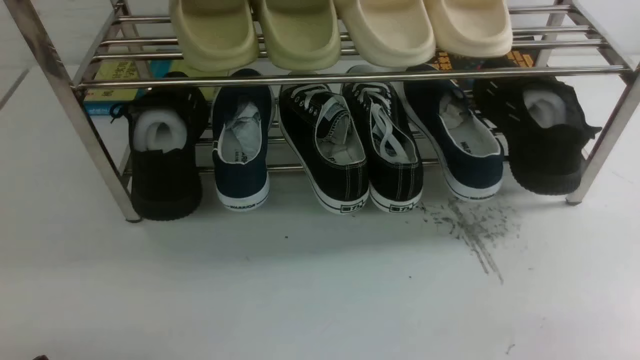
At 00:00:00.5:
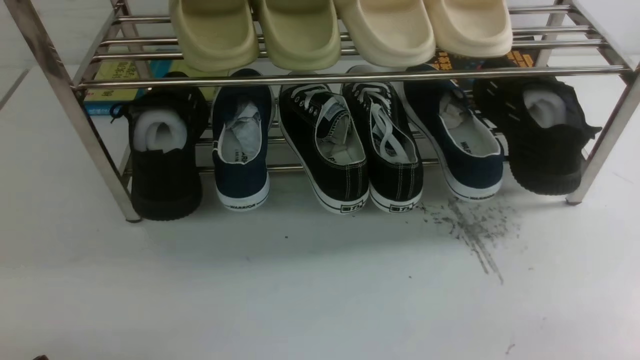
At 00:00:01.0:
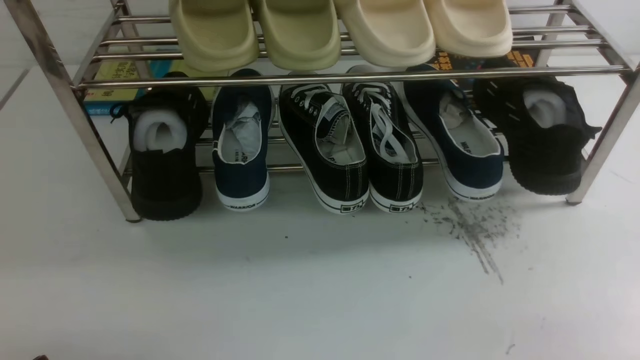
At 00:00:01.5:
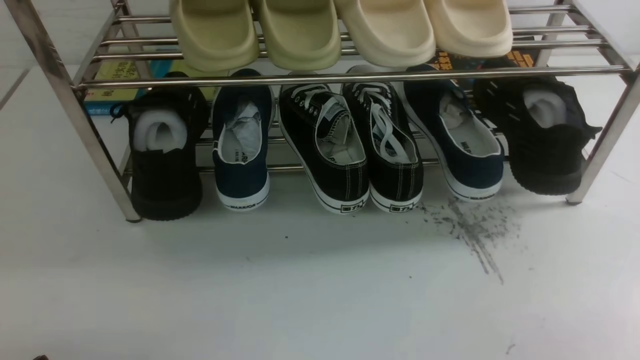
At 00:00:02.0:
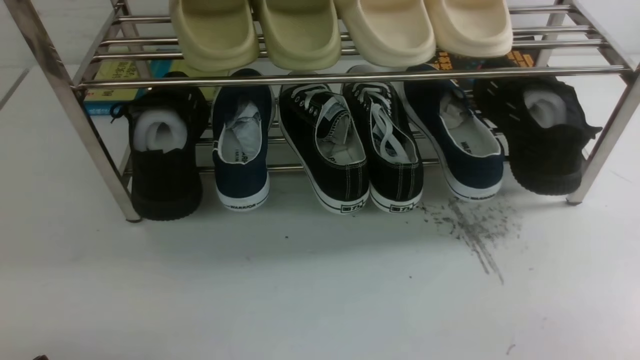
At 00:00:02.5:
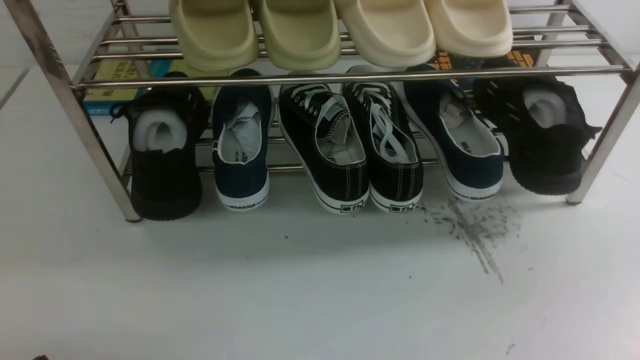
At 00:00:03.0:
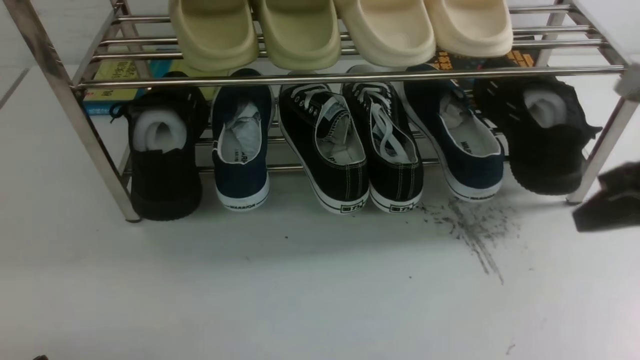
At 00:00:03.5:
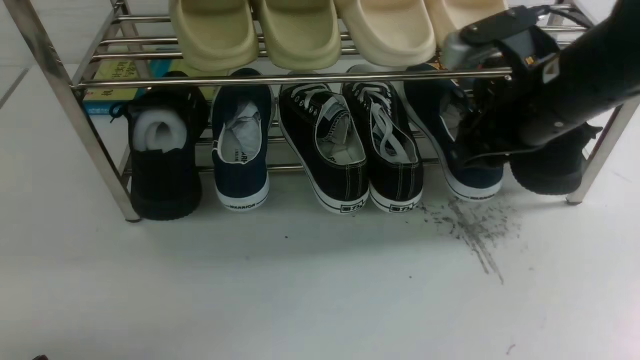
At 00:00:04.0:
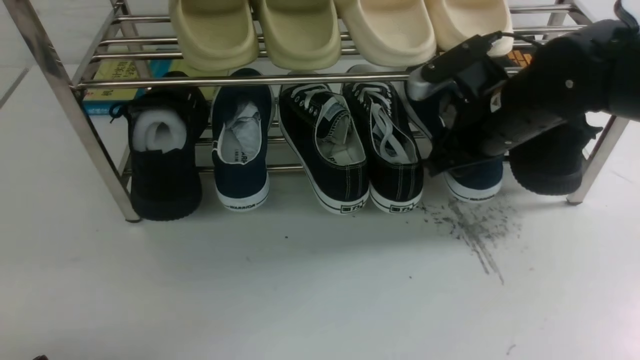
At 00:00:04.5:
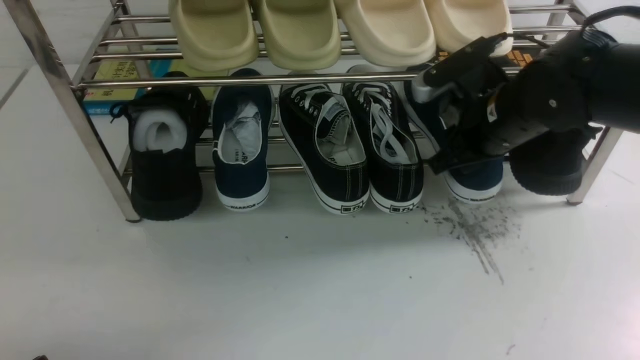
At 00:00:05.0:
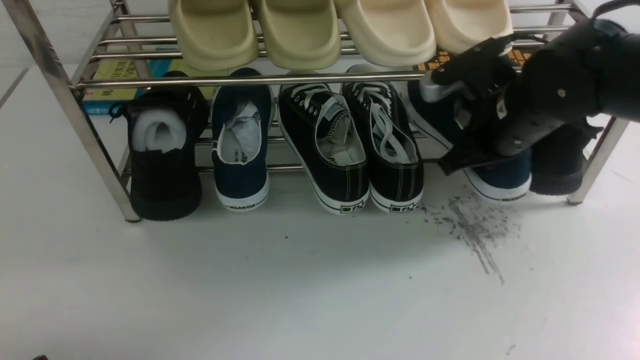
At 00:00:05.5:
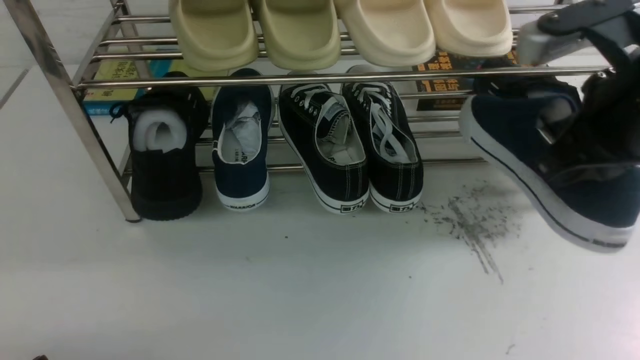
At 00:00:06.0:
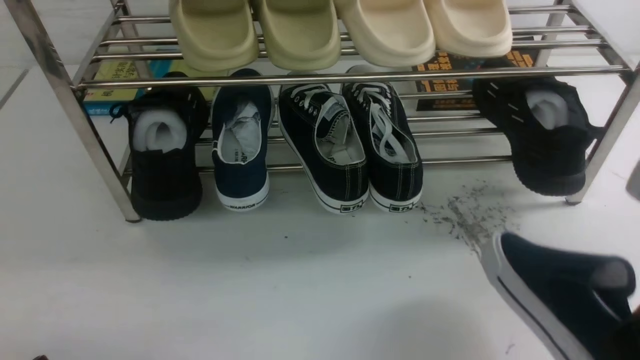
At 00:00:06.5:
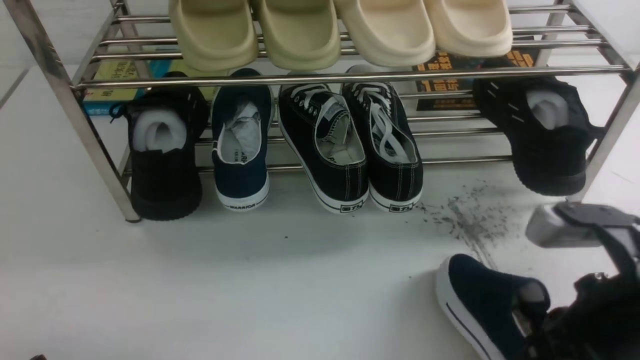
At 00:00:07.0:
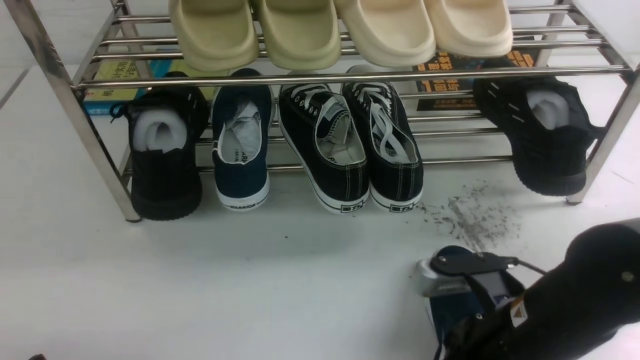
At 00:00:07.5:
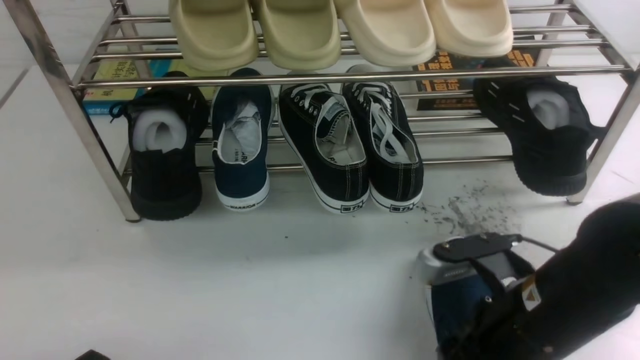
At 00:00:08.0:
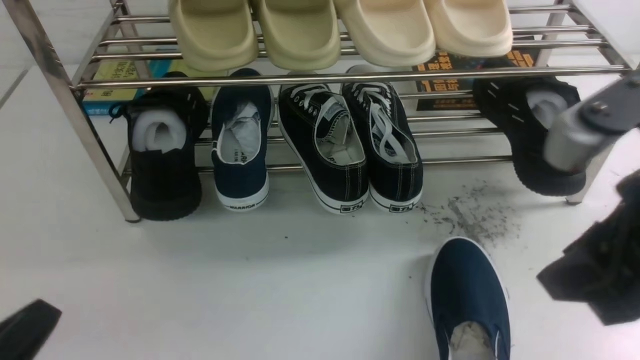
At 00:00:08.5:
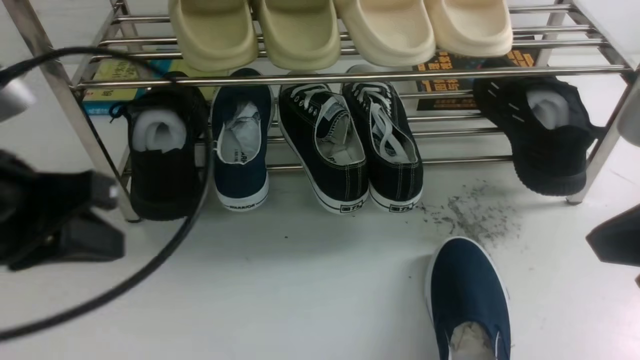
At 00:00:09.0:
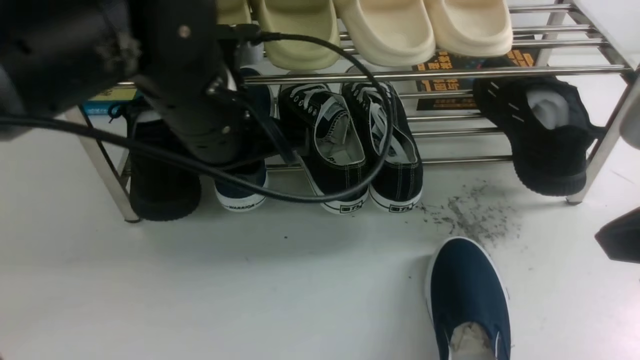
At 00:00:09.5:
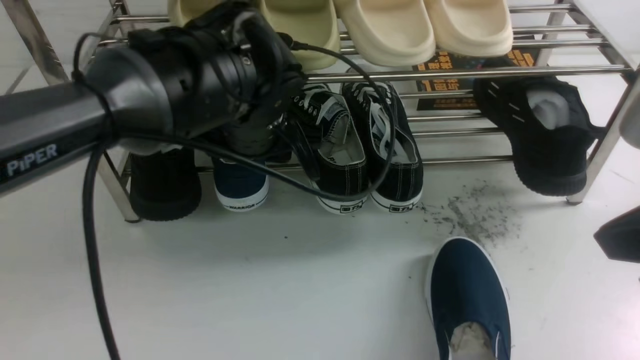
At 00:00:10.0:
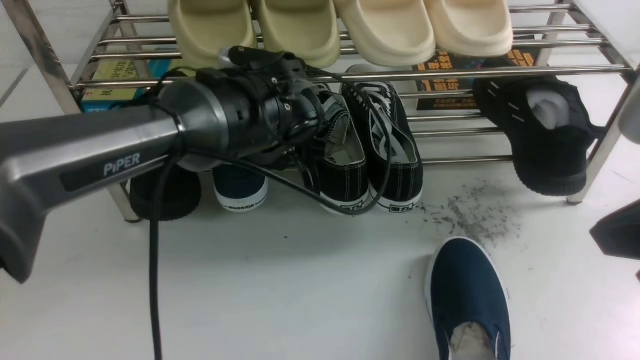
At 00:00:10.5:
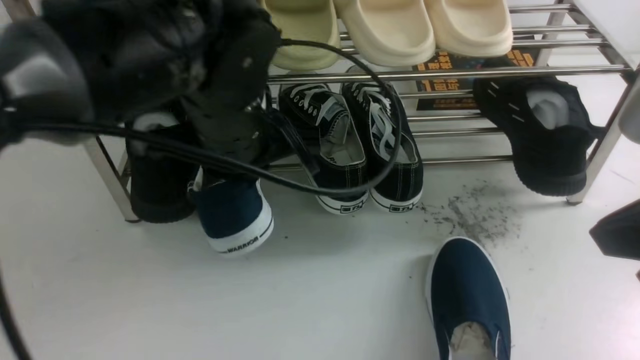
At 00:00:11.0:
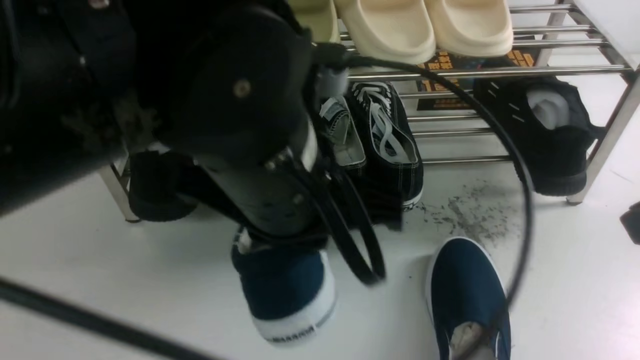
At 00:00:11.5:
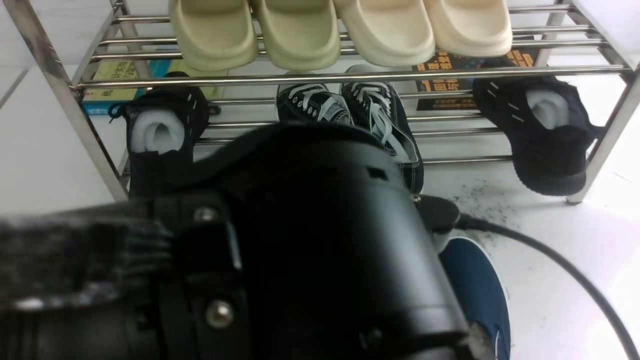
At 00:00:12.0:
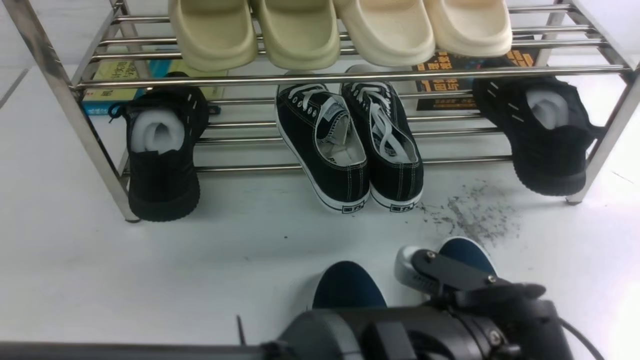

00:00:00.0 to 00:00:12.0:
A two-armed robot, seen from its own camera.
Step, 00:00:00.0 to 00:00:05.0: use the right arm to clamp a shoe on the right side of the shoe rack.
Step, 00:00:05.5 to 00:00:07.5: use the right arm to take out the clamped shoe from the shoe rack and put it down.
Step, 00:00:08.0 to 00:00:10.5: use the left arm to clamp a shoe on the left side of the shoe rack.
00:00:02.0 to 00:00:04.0: The right gripper is displaced forward and to the left by roughly 35 cm, and opens up.
00:00:04.0 to 00:00:06.0: The right gripper moves backward, about 20 cm, and closes.
00:00:06.0 to 00:00:08.0: The right gripper reaches some 15 cm downward, then returns, and opens its fingers. Meanwhile the left gripper goes about 10 cm upward, and closes up.
00:00:08.0 to 00:00:10.0: The left gripper goes some 35 cm forward and to the right, and opens its fingers. The right gripper closes its fingers.
00:00:10.0 to 00:00:12.0: The right gripper moves roughly 5 cm; the left gripper moves backward and to the right, approximately 25 cm, and closes its fingers.

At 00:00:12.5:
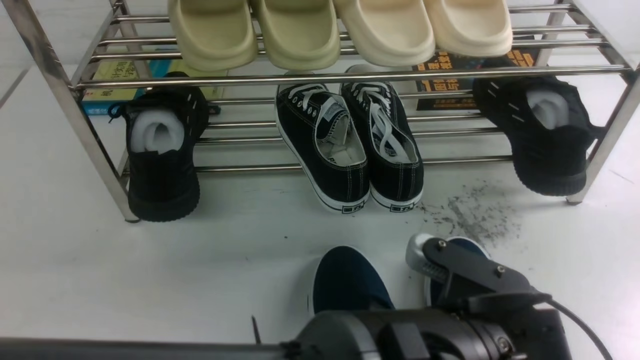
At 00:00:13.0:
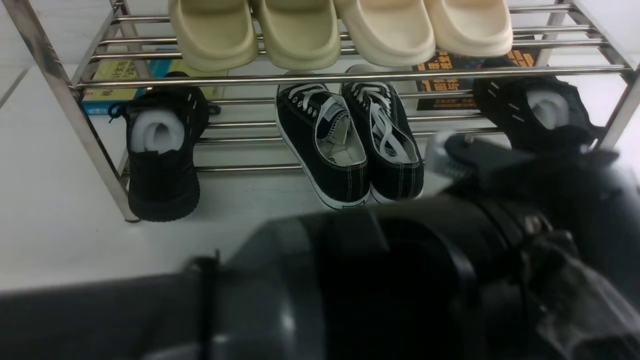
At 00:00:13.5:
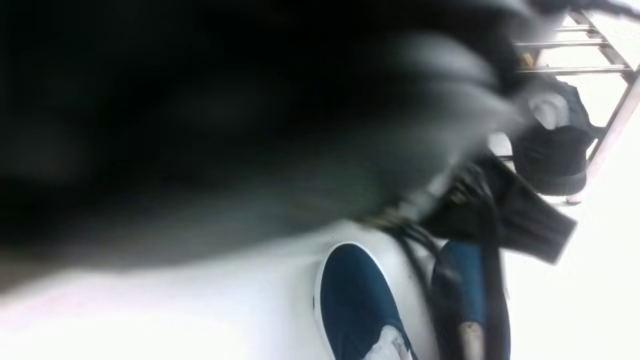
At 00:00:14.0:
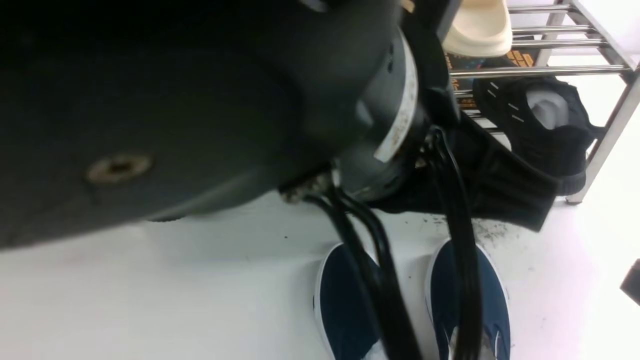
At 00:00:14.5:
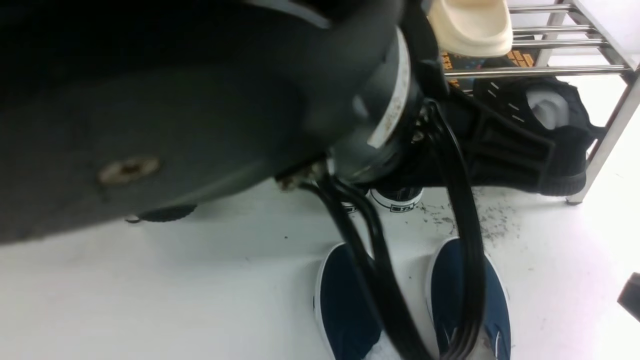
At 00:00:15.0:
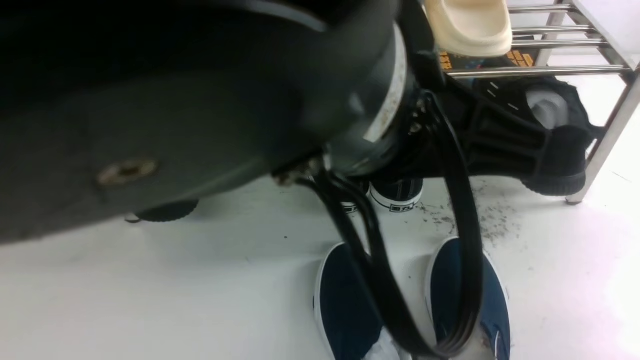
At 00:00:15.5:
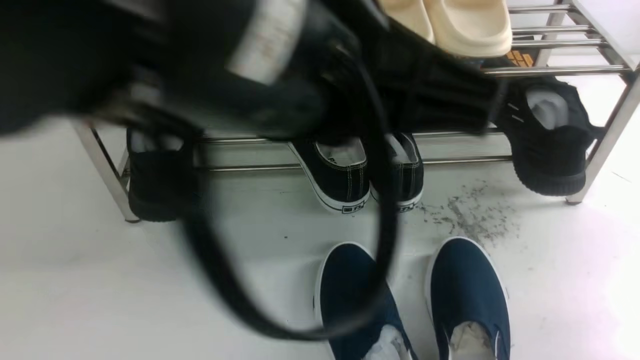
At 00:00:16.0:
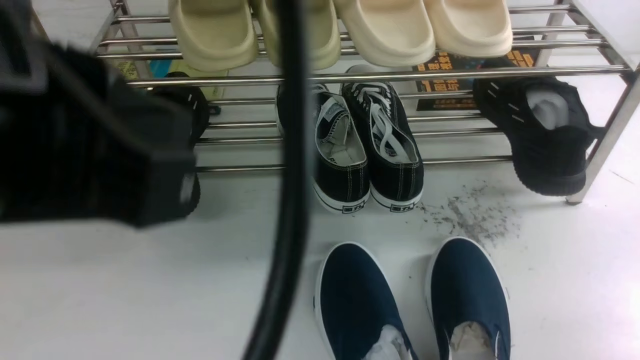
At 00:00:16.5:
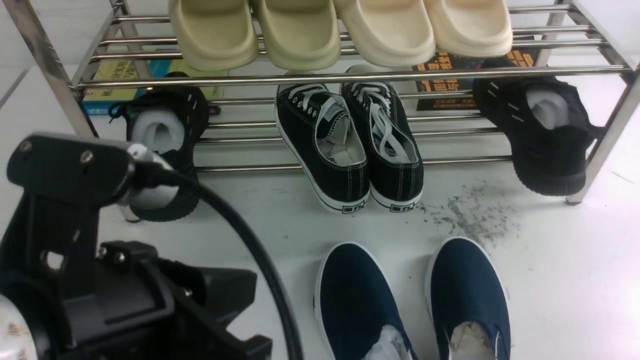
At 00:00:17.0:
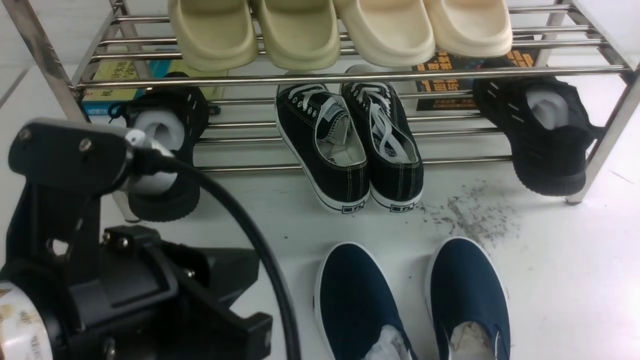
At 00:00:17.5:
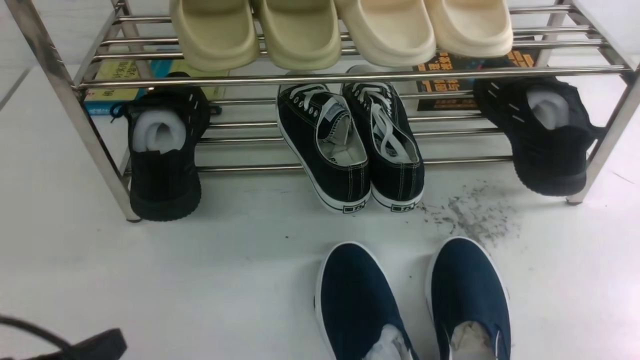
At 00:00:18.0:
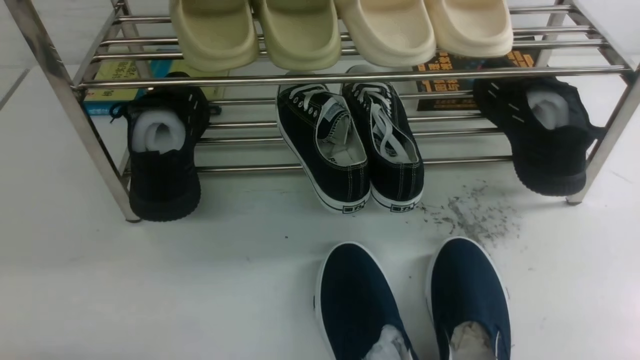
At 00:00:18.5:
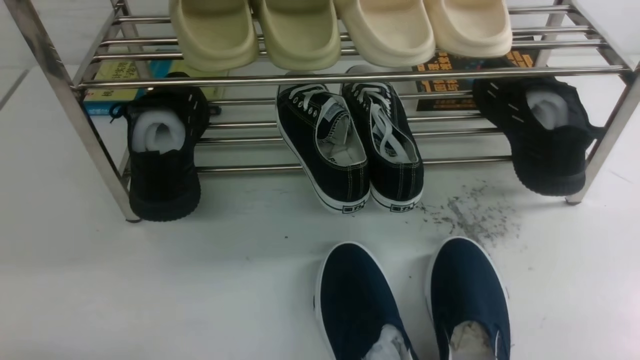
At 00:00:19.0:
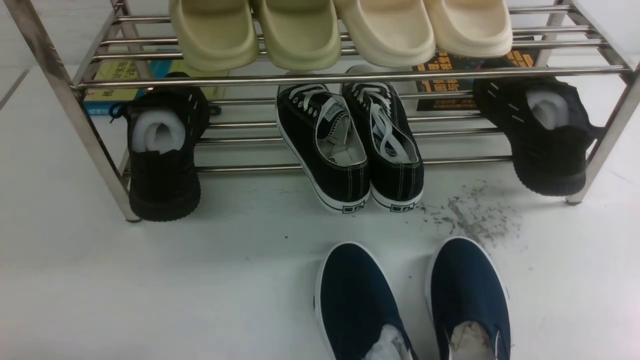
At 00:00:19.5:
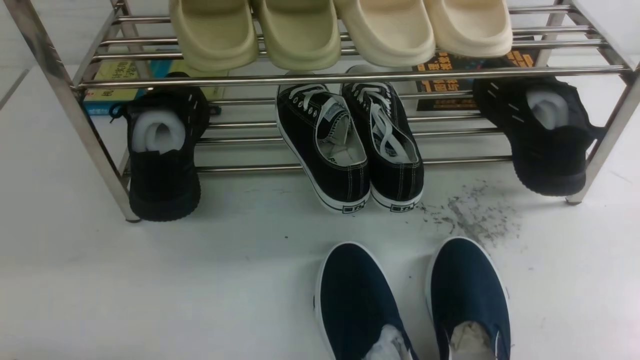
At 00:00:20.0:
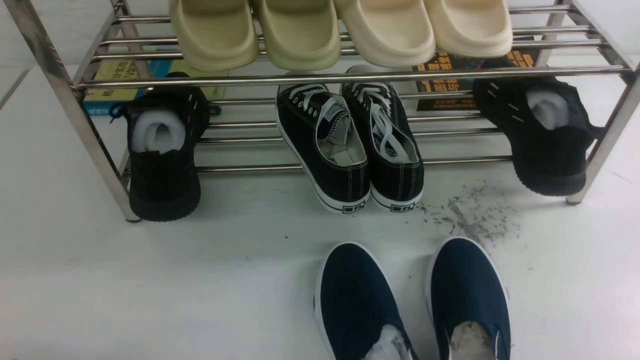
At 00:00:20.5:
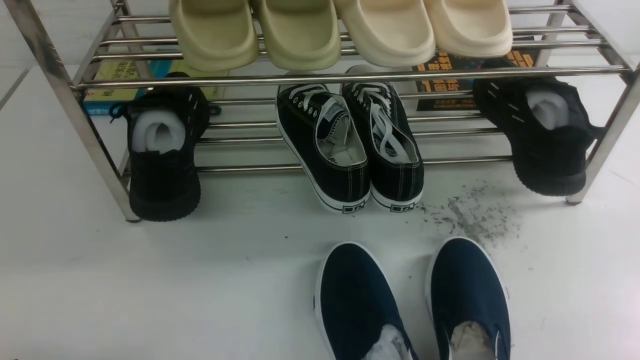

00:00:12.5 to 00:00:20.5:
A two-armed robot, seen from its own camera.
00:00:12.5 to 00:00:14.5: The left gripper heads upward and to the left, covering some 25 cm, and closes its fingers; the right gripper moves downward, roughly 15 cm.
00:00:14.5 to 00:00:16.5: The right gripper shifts approximately 10 cm downward. The left gripper shifts approximately 15 cm to the left and downward.
00:00:16.5 to 00:00:18.5: The left gripper heads downward and to the left, covering roughly 25 cm.
00:00:18.5 to 00:00:20.5: Neither gripper changes place.
